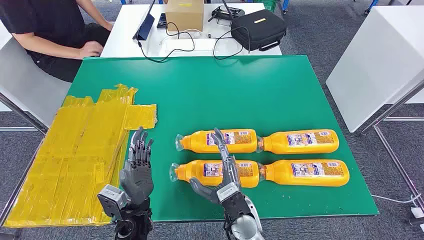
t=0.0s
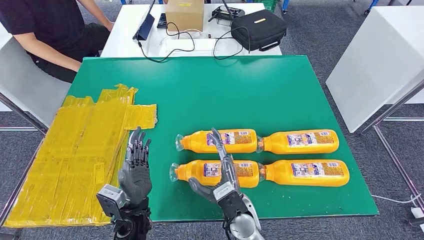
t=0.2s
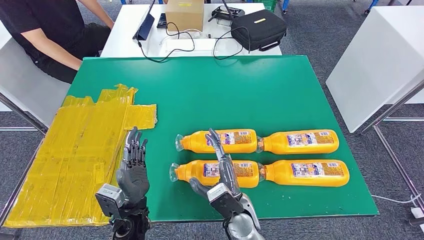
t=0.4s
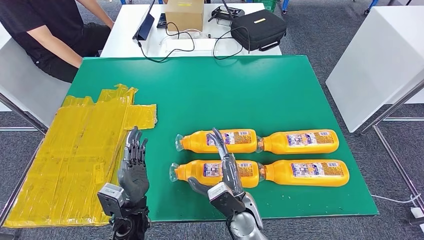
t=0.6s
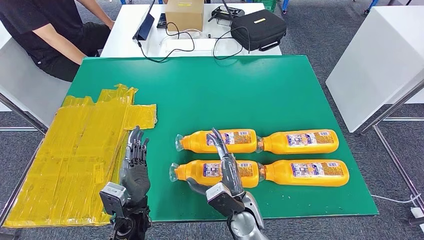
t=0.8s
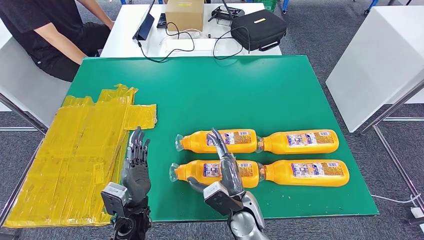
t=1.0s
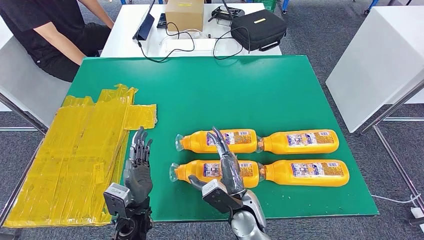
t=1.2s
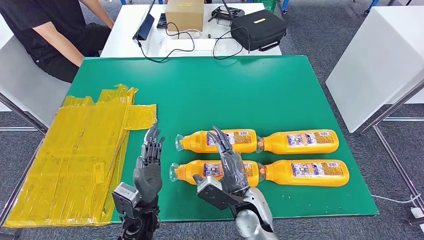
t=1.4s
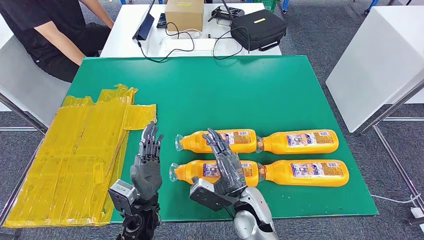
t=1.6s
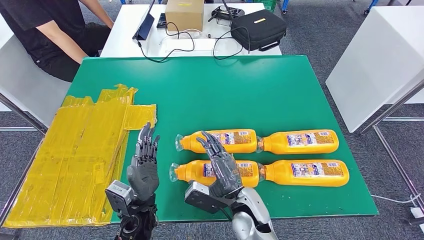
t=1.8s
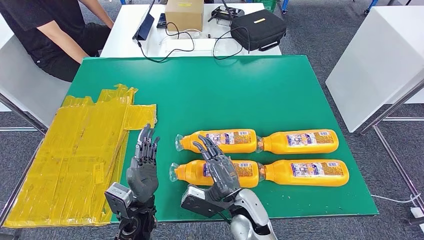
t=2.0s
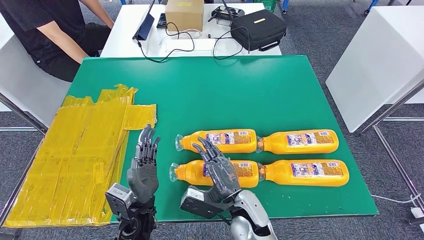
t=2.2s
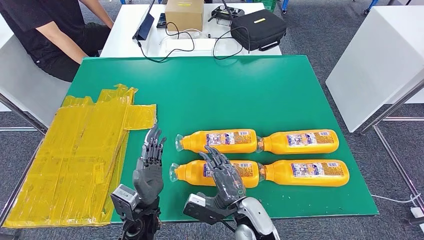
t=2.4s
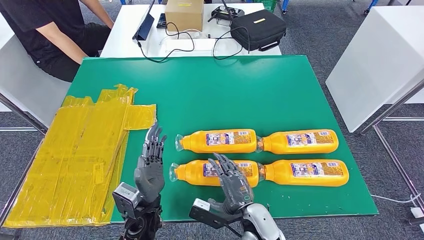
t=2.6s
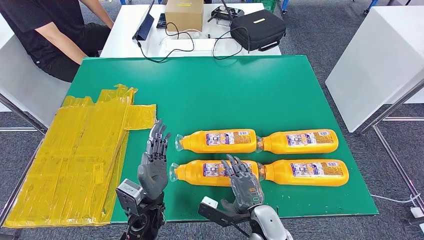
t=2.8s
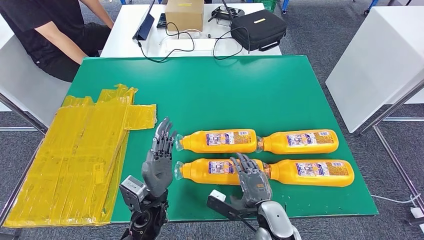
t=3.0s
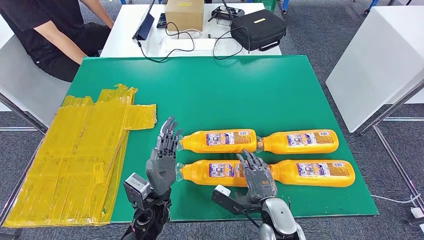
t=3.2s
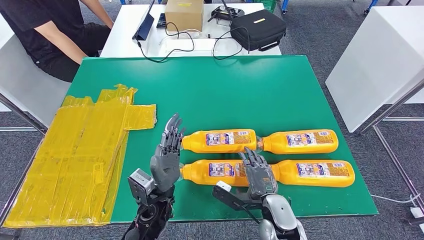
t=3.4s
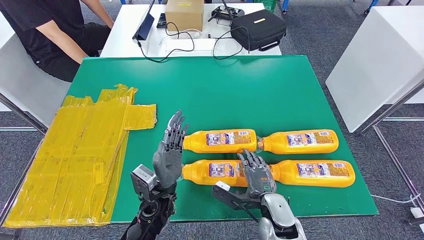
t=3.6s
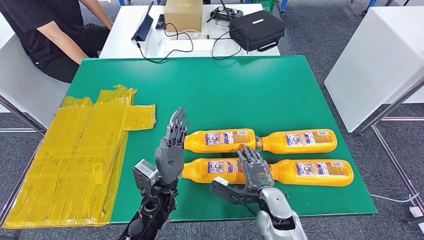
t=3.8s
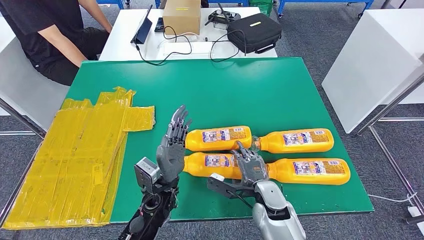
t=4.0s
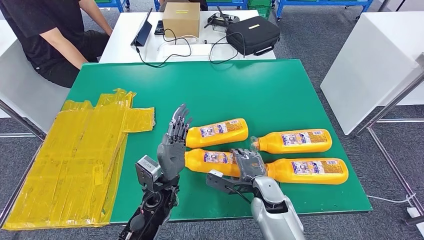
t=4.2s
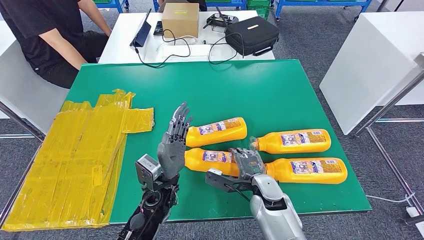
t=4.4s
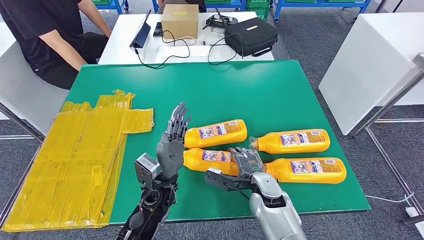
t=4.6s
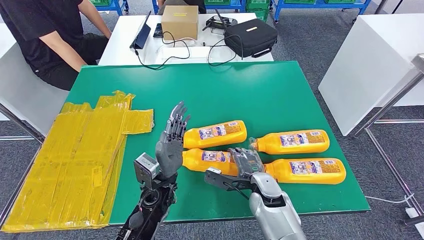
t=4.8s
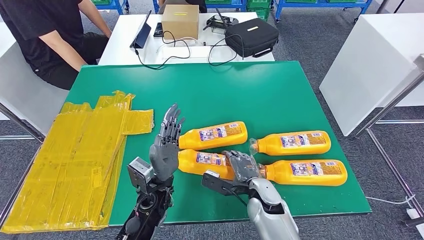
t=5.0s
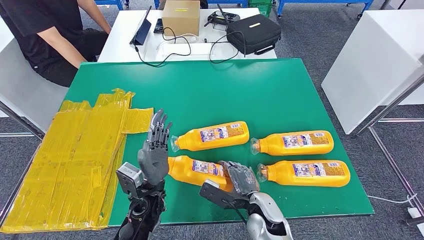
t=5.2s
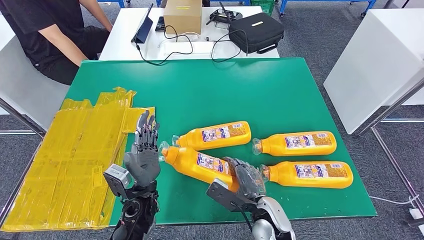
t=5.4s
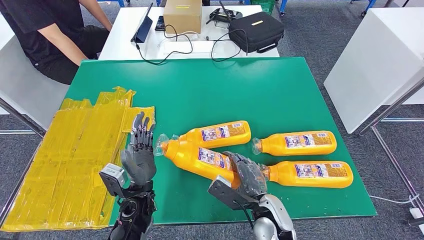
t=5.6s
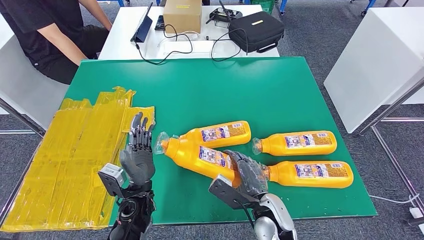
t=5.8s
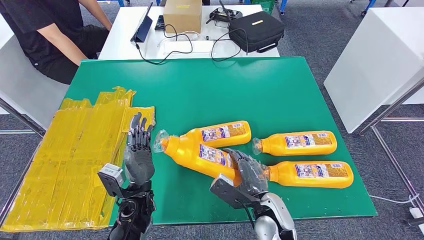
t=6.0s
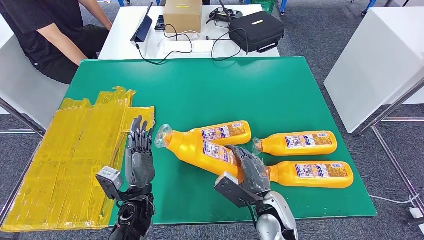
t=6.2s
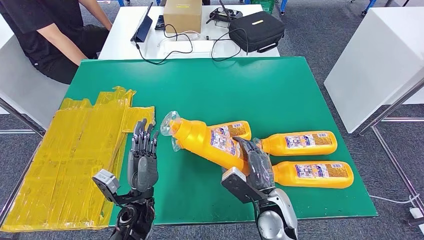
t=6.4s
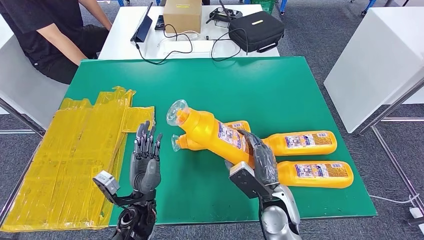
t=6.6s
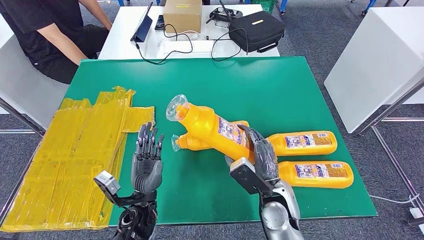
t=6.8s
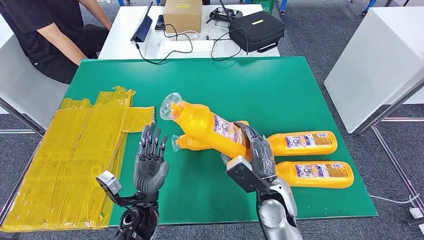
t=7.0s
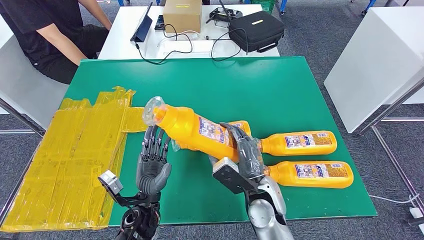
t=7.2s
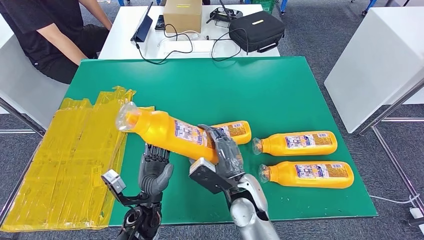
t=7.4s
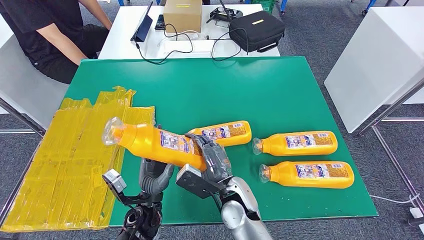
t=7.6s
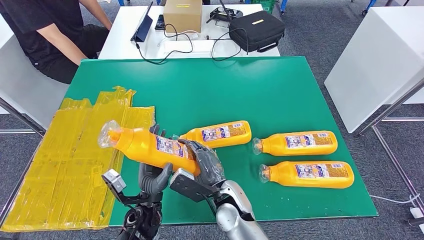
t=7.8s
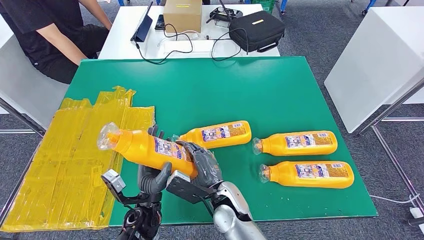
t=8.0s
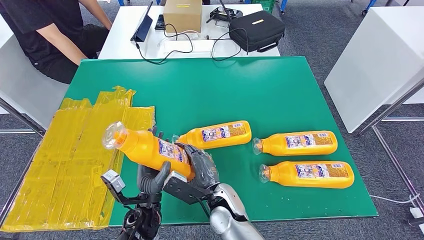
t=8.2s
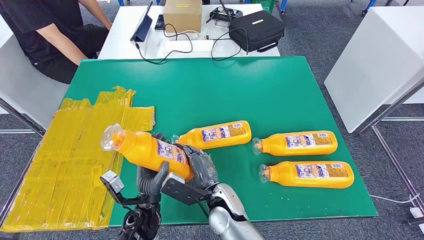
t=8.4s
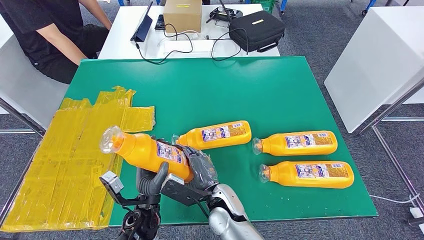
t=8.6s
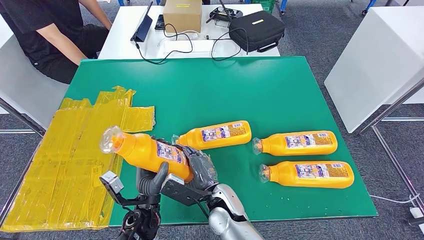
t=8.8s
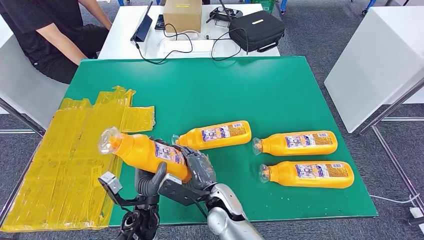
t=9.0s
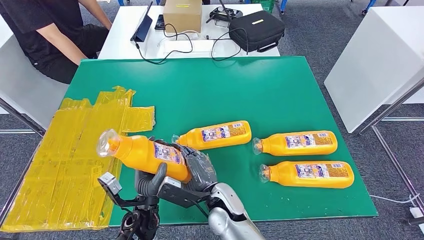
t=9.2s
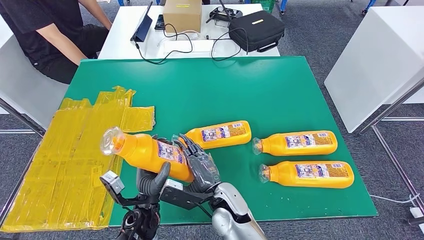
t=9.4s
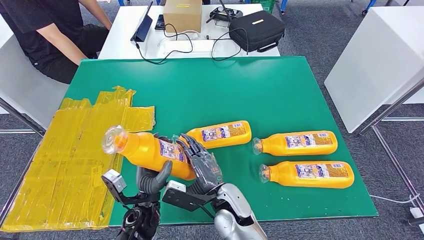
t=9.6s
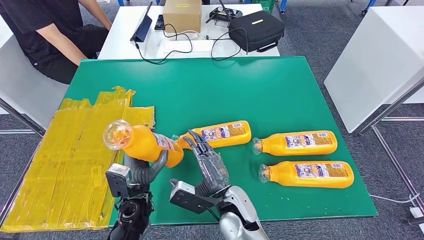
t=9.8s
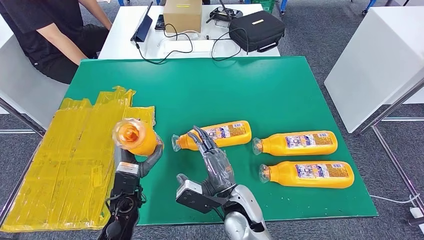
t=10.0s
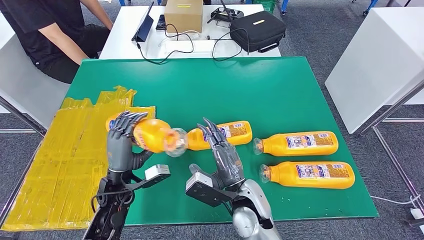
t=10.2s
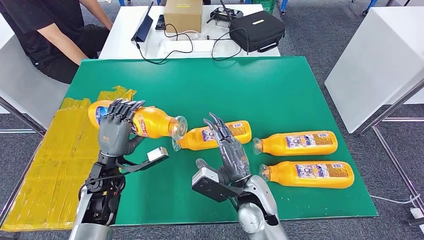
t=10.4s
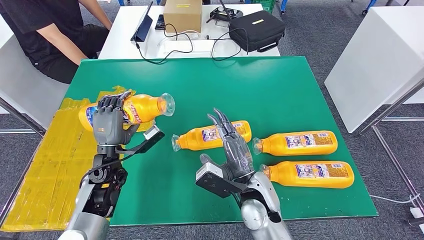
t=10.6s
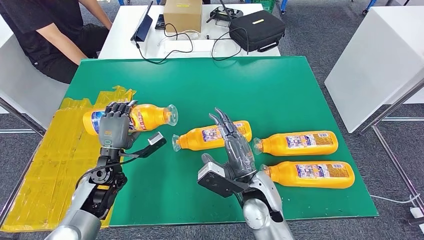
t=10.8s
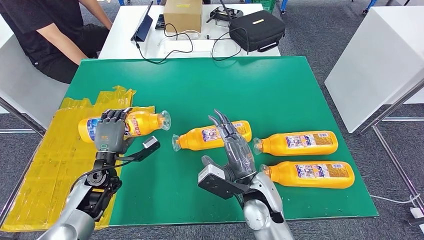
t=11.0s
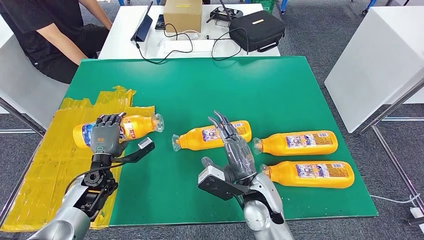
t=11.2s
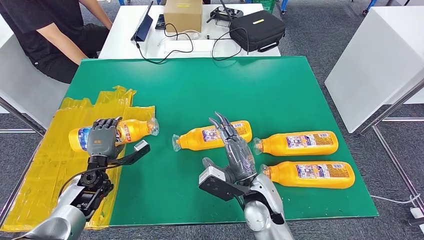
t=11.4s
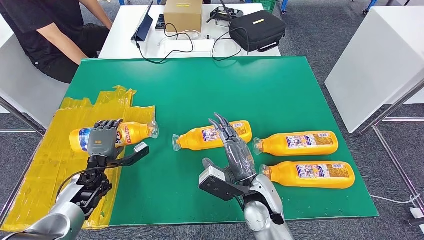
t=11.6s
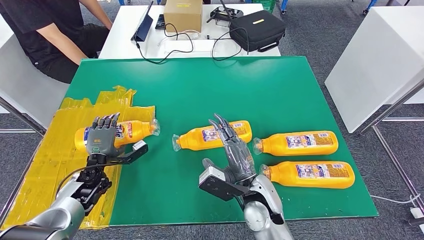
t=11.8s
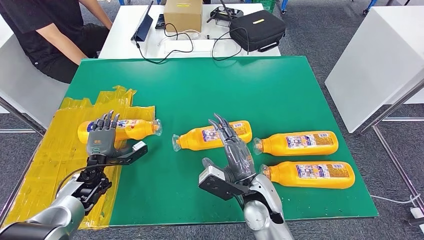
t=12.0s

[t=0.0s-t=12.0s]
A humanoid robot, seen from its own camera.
Step, t=0.0s to t=7.2s: Take the fast-moving consumer goods bottle from the table.
Step, t=7.4s to t=11.6s: Flip the fast-moving consumer goods bottle to the front side.
t=1.6s to t=3.0s: The right hand moves to the right, some 5 cm.
t=6.0s to t=7.6s: The right hand travels to the left by about 10 cm.
t=7.6s to t=9.0s: The right hand changes place by approximately 5 cm.
t=9.0s to t=10.4s: The left hand moves to the left, forward and upward, some 15 cm, while the right hand is displaced to the right and upward by approximately 10 cm.
t=10.4s to t=12.0s: The left hand heads to the left and downward, covering roughly 10 cm.

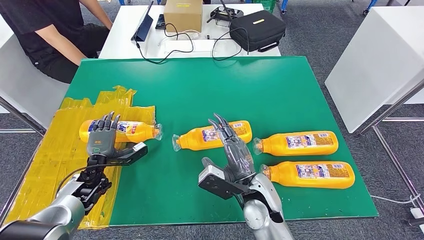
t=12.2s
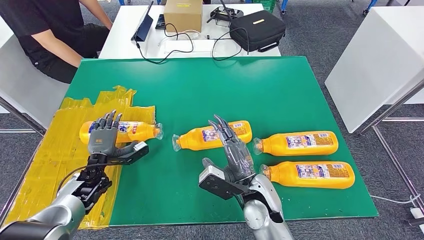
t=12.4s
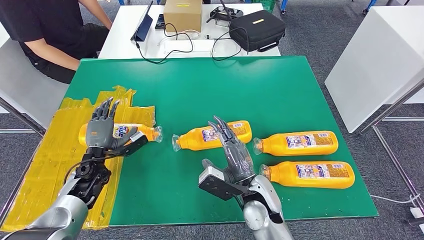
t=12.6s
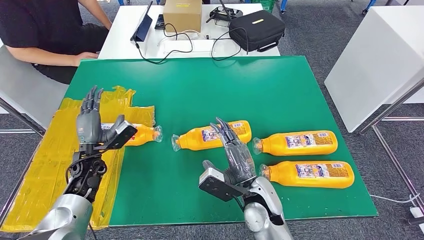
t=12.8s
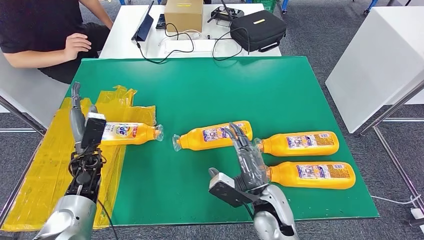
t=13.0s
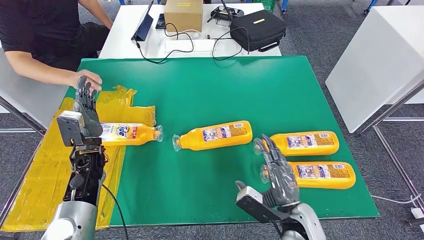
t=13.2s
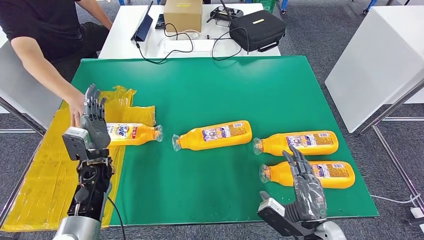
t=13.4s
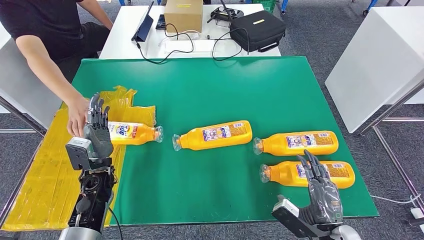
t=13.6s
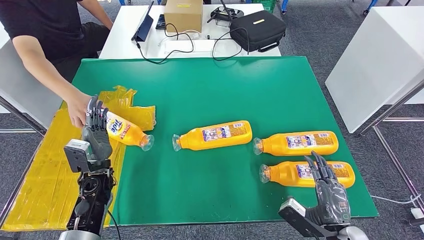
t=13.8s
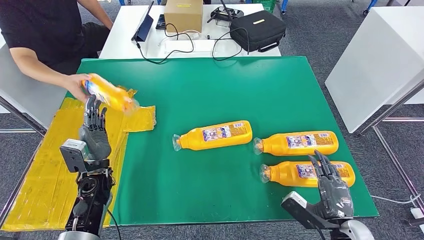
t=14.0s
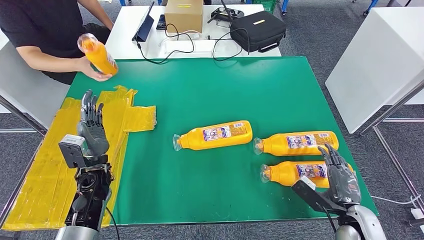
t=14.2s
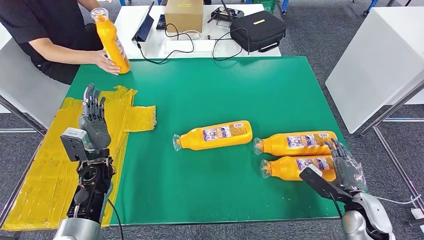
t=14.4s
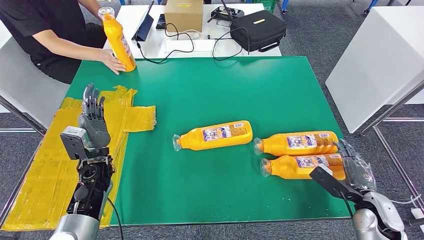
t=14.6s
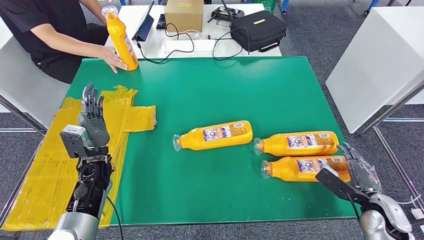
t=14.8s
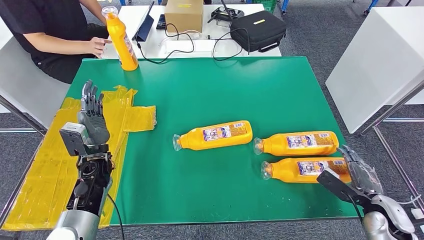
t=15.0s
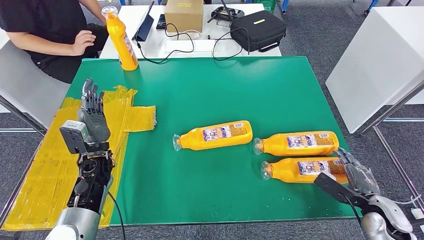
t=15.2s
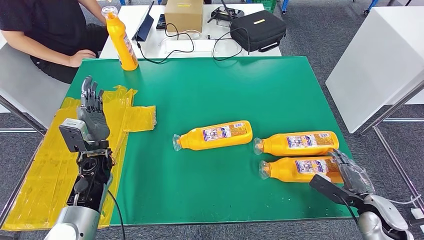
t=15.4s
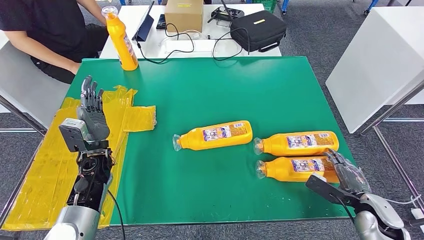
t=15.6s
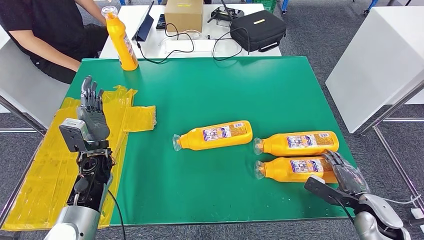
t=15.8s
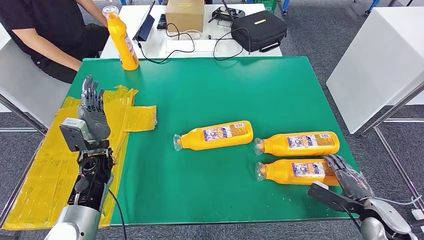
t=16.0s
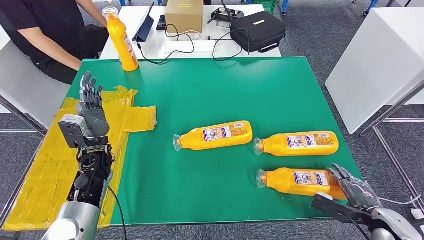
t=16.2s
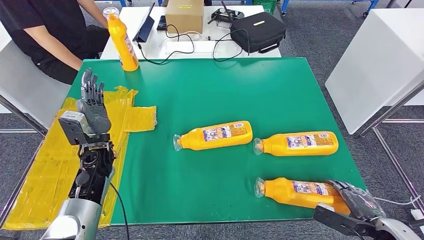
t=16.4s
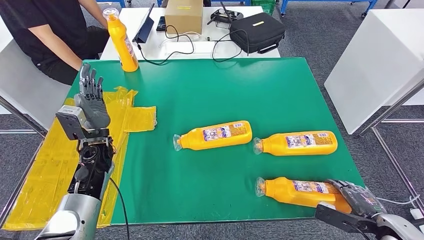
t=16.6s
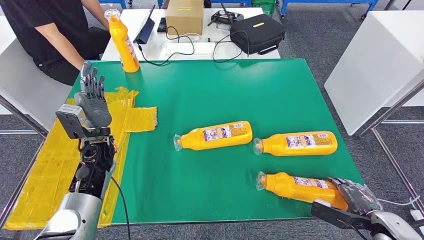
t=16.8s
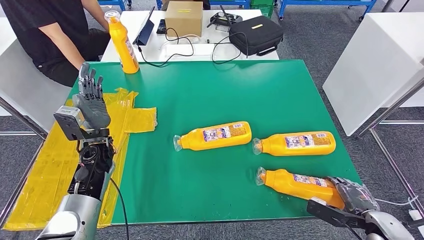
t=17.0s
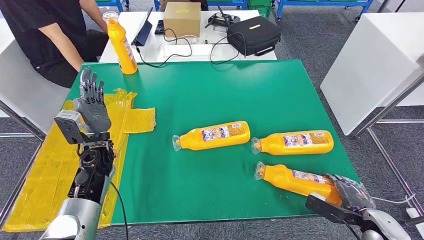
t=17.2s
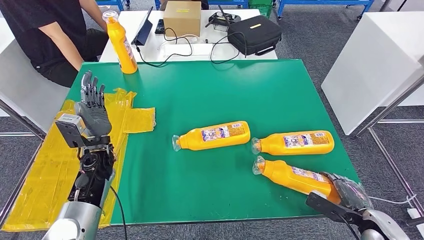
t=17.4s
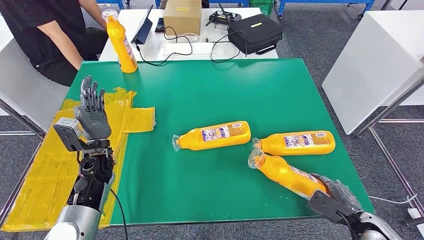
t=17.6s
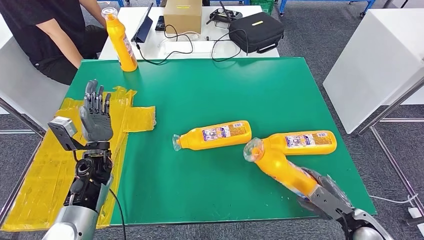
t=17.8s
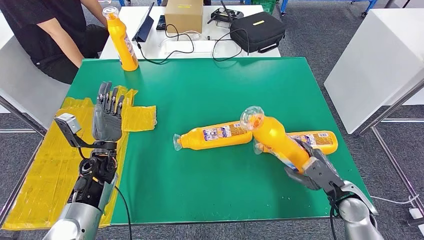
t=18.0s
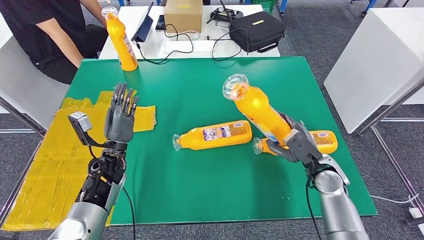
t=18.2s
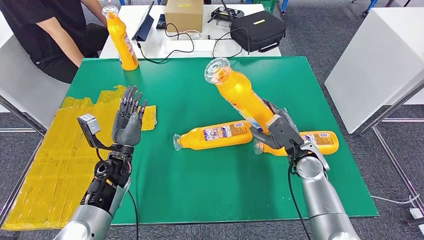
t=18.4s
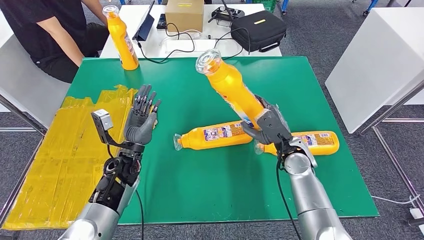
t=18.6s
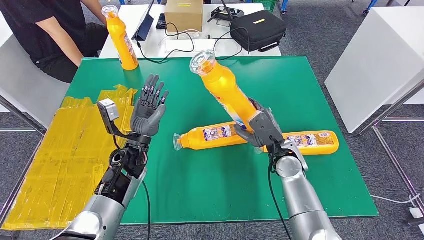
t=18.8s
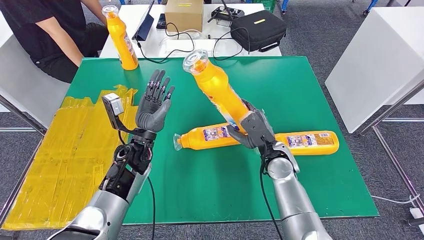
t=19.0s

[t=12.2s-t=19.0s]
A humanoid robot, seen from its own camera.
t=12.2s to t=13.6s: The left hand shifts some 10 cm to the right and upward; the right hand travels to the right and backward by roughly 20 cm.
t=13.6s to t=15.0s: The right hand shifts some 15 cm to the right and forward.
